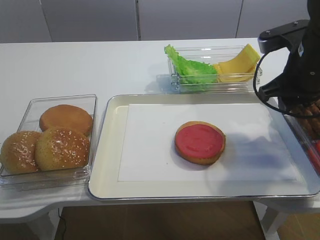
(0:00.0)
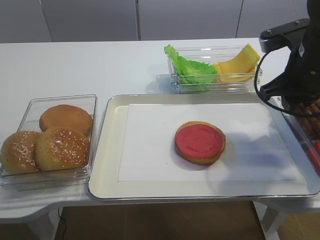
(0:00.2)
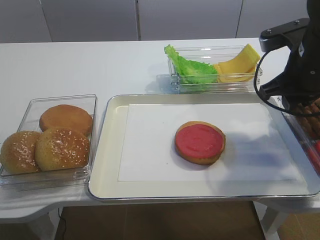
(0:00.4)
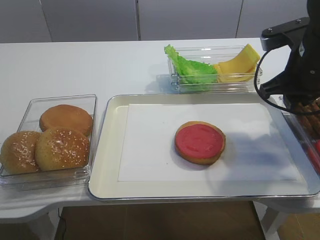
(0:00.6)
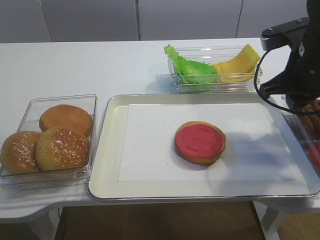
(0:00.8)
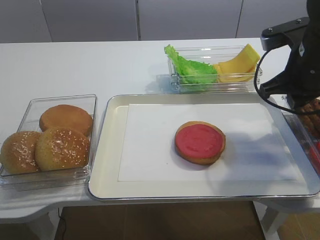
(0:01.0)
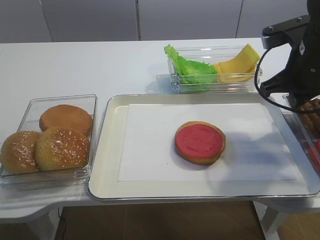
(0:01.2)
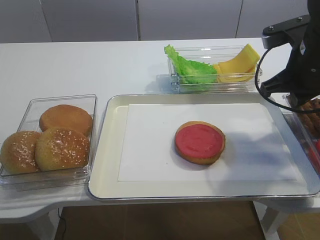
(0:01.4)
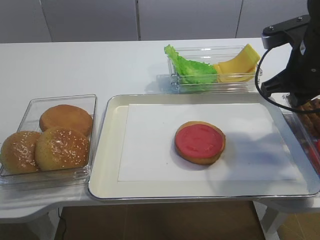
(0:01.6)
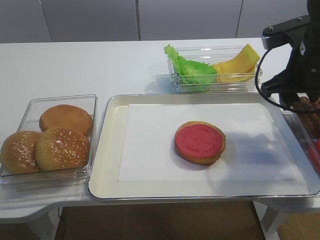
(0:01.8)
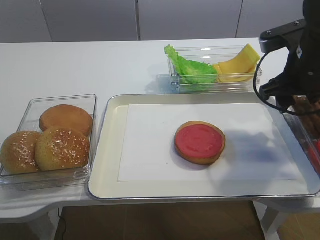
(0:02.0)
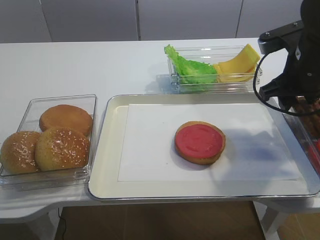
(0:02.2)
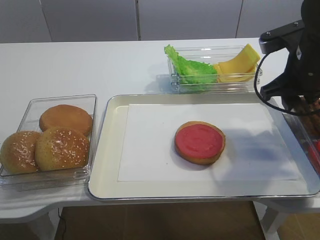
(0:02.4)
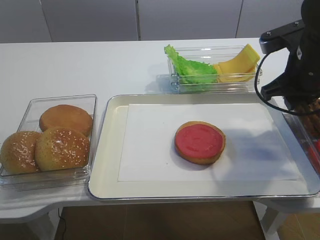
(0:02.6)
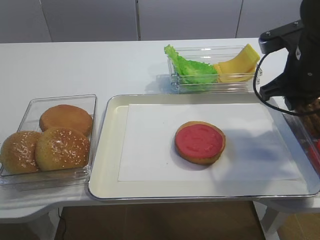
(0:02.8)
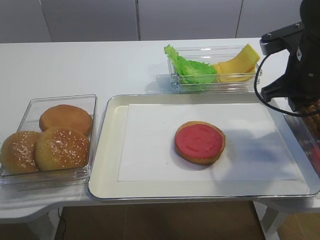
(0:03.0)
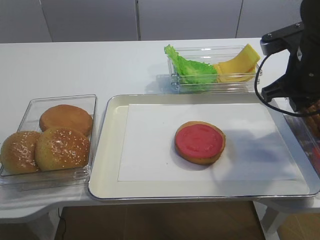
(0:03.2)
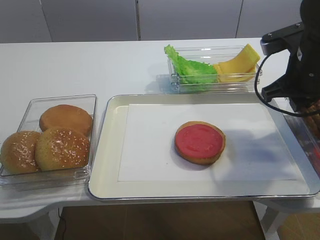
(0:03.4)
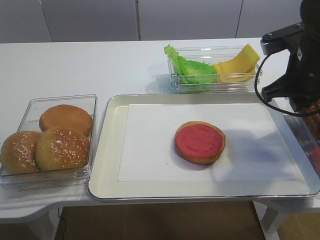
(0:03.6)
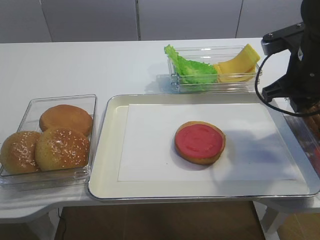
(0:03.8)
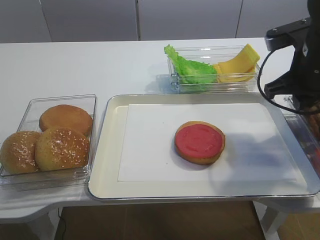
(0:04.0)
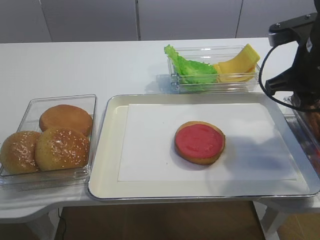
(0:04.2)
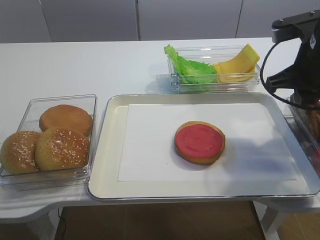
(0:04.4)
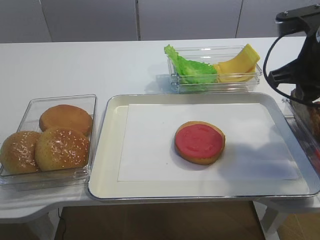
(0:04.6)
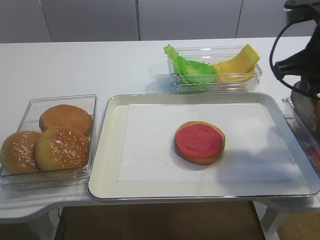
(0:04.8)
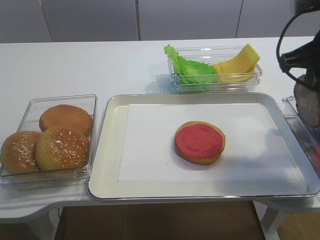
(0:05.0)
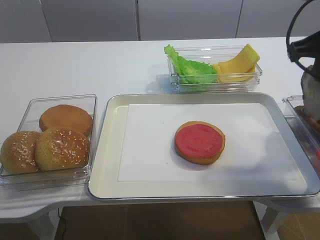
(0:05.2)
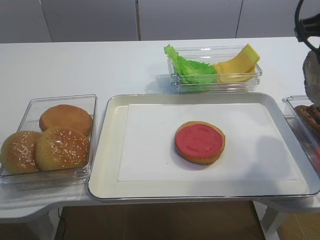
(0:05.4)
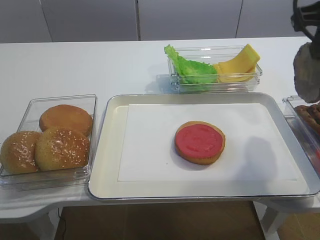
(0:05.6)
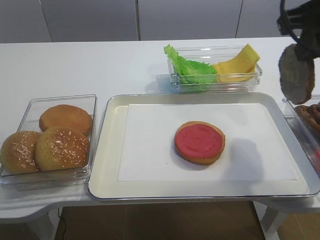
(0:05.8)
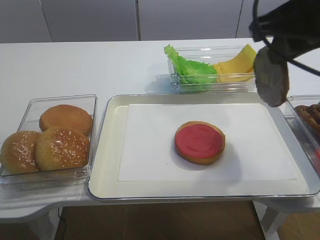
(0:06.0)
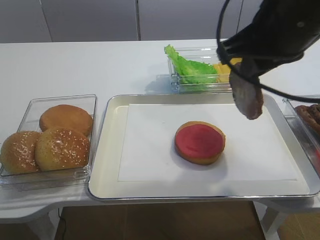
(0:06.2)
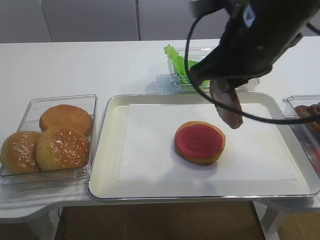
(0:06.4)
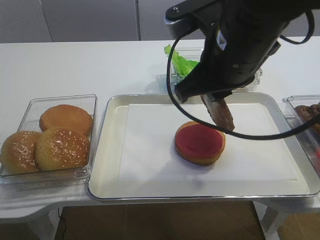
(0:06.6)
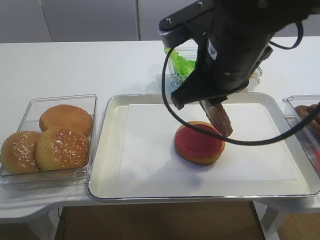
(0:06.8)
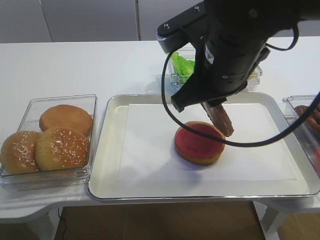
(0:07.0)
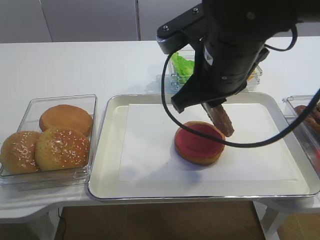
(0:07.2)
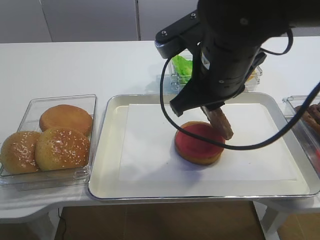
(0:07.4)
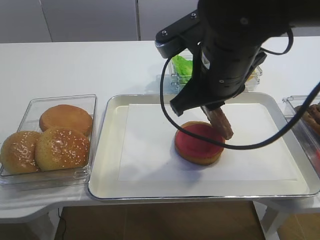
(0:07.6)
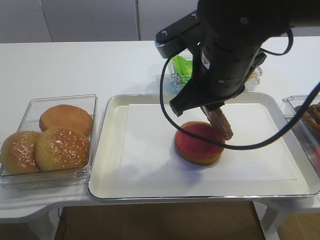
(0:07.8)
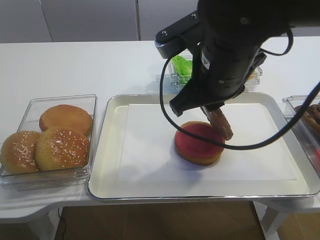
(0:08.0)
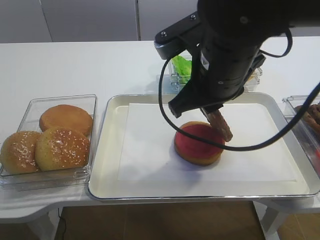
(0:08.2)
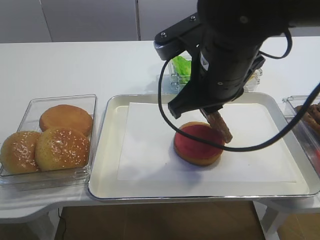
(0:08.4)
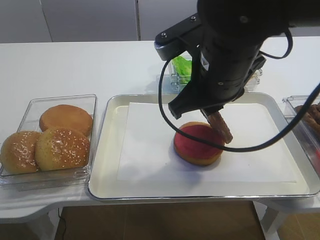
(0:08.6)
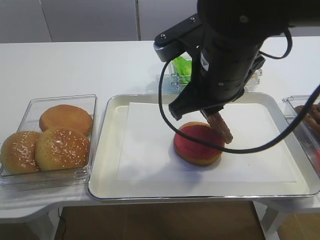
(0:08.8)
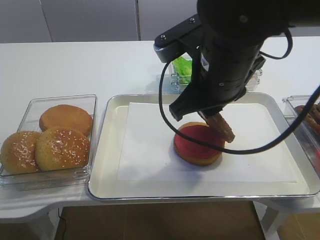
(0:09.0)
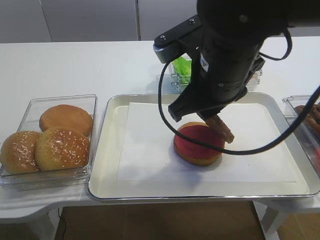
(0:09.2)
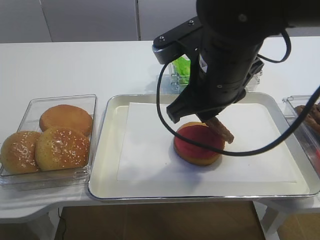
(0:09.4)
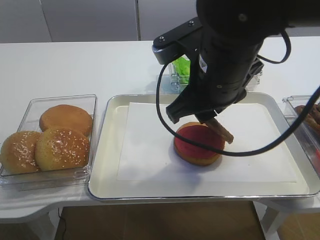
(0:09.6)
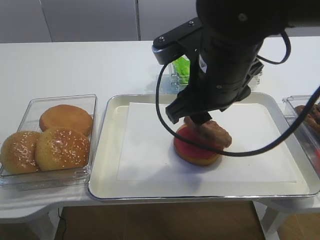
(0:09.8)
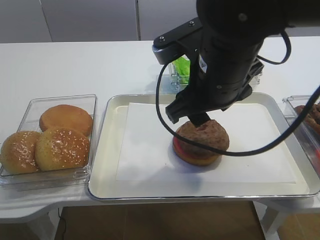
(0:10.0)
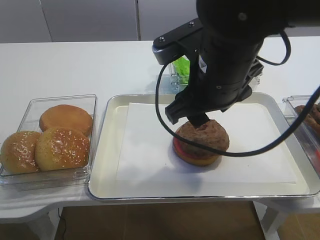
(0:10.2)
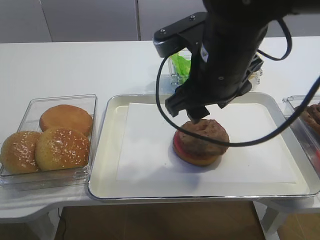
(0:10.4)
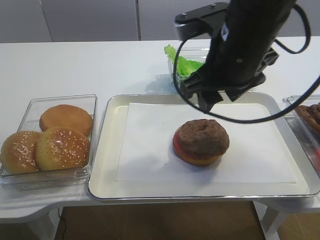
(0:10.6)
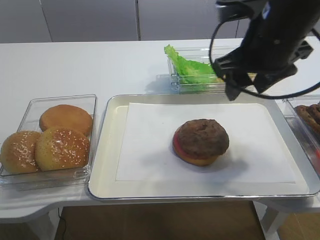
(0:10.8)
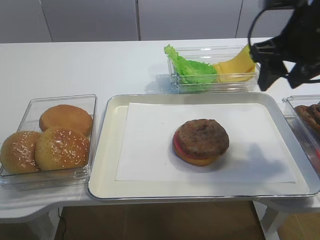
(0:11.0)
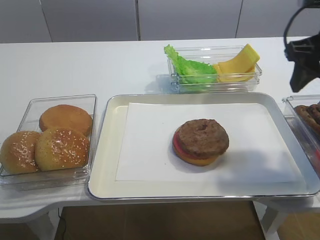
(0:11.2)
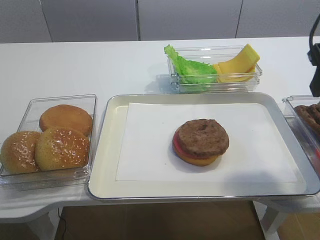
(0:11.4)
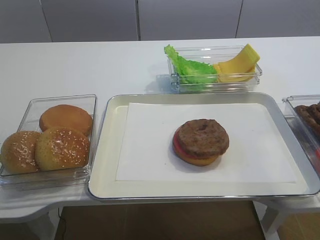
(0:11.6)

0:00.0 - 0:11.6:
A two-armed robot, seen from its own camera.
Step, 0:00.0 - 0:05.2: Pick up the cutlet with the right gripper.
Step, 0:05.4 - 0:11.4: Place the cutlet on the tomato slice with the right gripper.
0:00.0 - 0:01.4: The right gripper closes its fingers.
0:01.4 - 0:02.8: The right gripper opens up.
0:02.8 - 0:04.4: The grippers move only a little.
0:04.4 - 0:05.8: The right gripper shifts roughly 10 cm upward and backward.
0:05.8 - 0:07.2: The right gripper heads to the left and downward, covering approximately 15 cm.
0:07.2 - 0:08.8: Neither gripper changes place.
0:08.8 - 0:10.2: The right gripper opens up.
0:10.2 - 0:11.6: The right gripper shifts approximately 20 cm to the right.

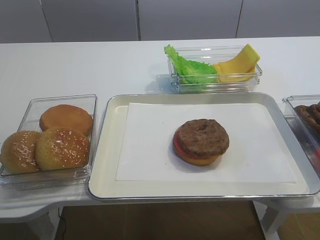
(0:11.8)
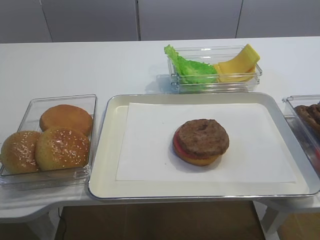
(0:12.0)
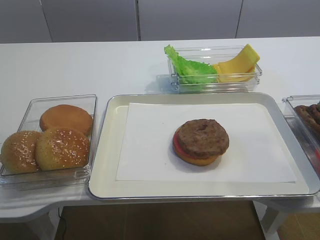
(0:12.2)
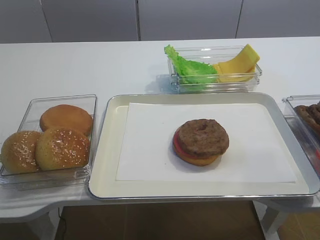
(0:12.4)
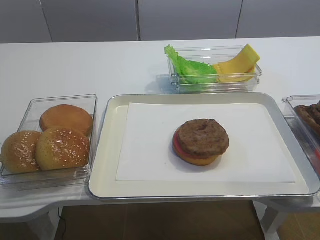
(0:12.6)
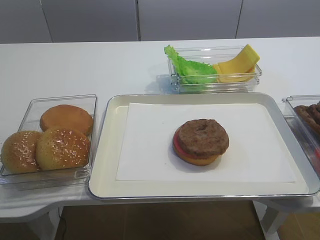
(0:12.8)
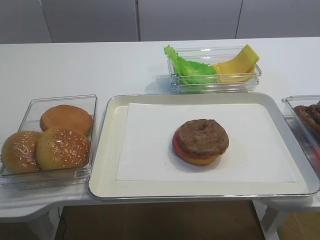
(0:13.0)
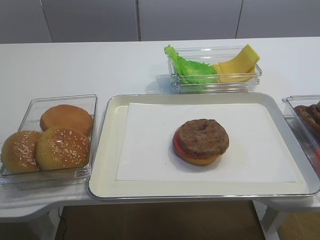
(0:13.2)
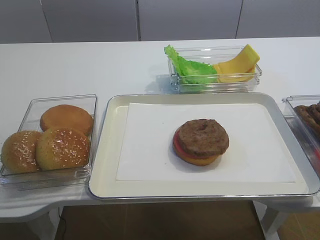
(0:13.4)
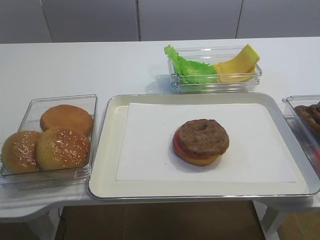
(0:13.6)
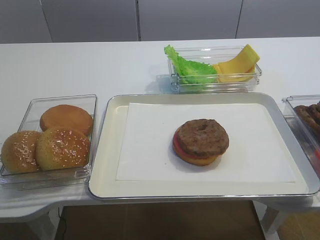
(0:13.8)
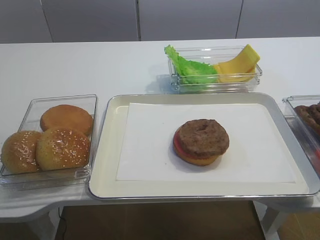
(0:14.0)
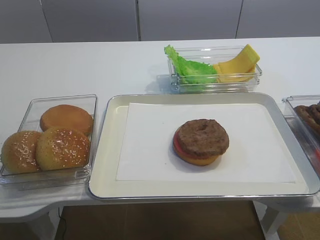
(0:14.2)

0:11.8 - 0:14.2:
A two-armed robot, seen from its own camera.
0:11.8 - 0:13.0: The right gripper heads backward, covering roughly 20 cm.

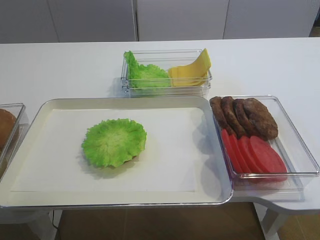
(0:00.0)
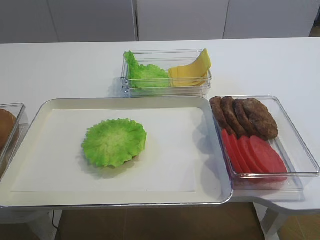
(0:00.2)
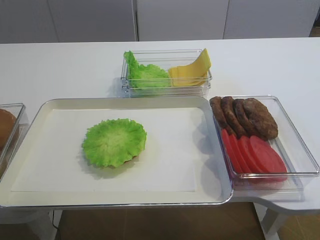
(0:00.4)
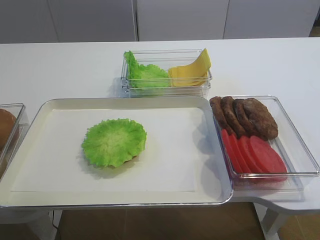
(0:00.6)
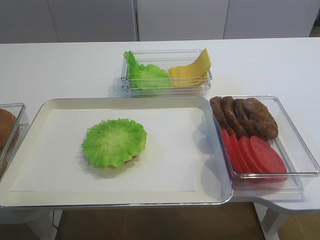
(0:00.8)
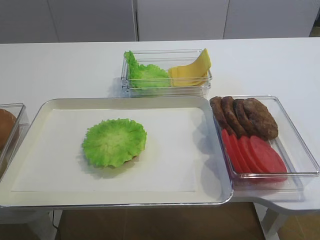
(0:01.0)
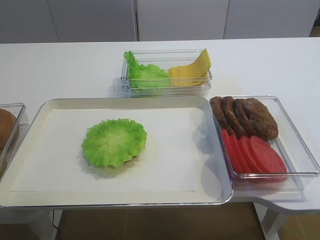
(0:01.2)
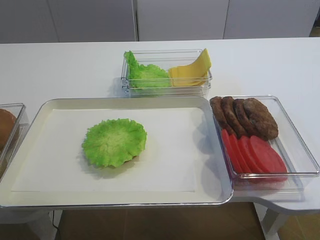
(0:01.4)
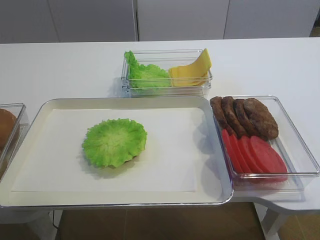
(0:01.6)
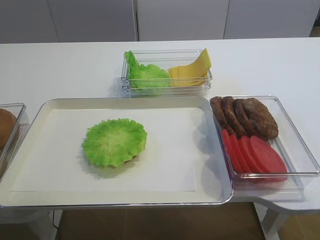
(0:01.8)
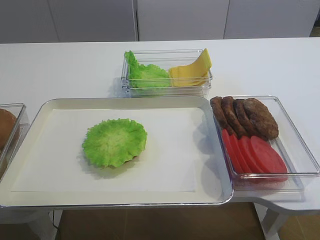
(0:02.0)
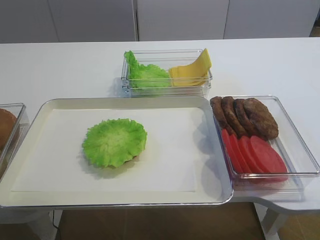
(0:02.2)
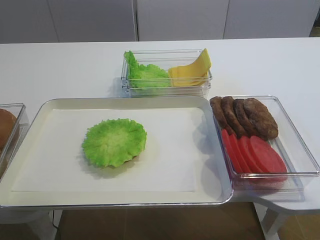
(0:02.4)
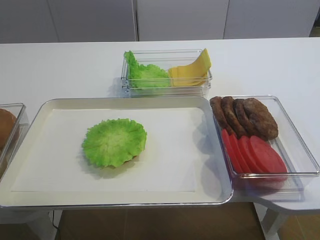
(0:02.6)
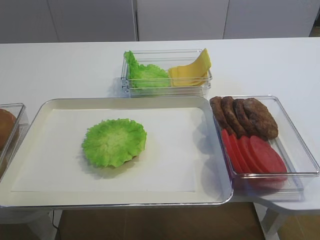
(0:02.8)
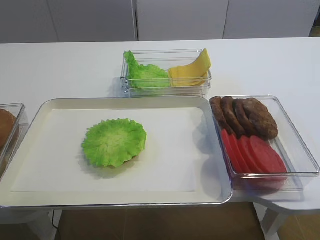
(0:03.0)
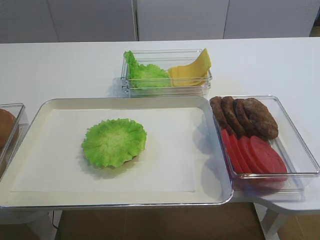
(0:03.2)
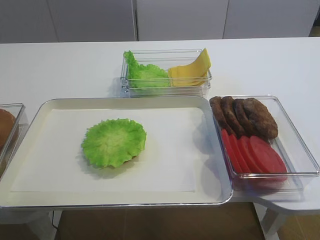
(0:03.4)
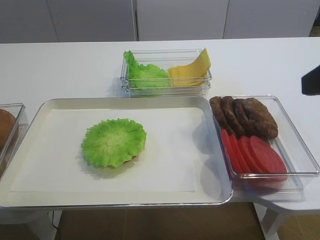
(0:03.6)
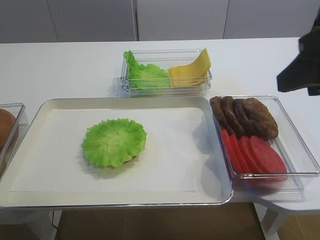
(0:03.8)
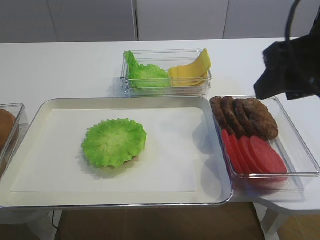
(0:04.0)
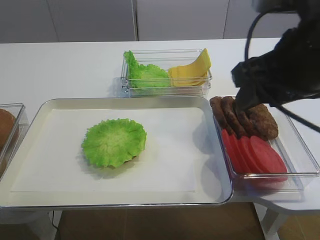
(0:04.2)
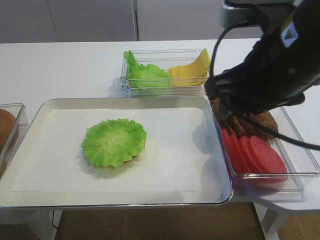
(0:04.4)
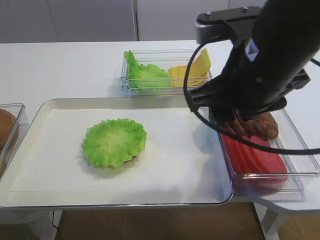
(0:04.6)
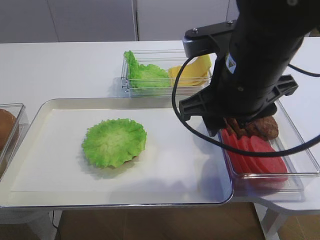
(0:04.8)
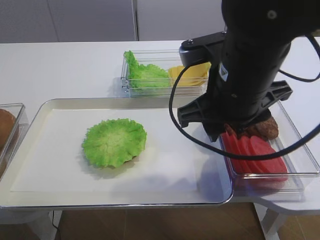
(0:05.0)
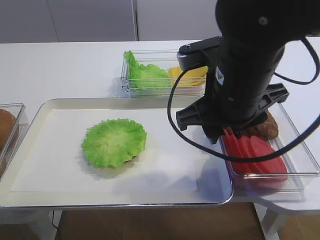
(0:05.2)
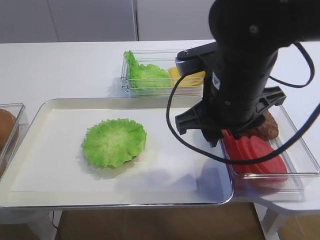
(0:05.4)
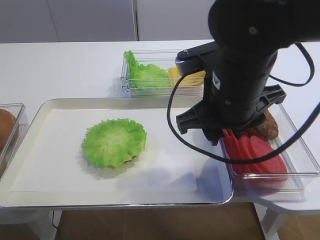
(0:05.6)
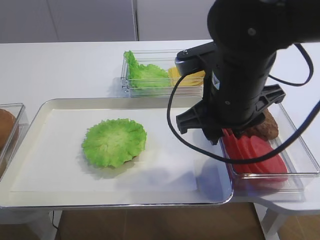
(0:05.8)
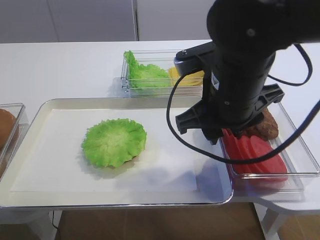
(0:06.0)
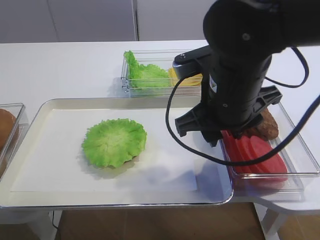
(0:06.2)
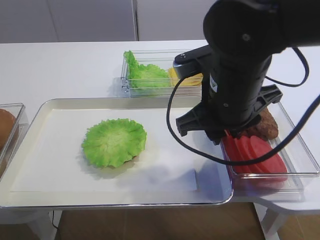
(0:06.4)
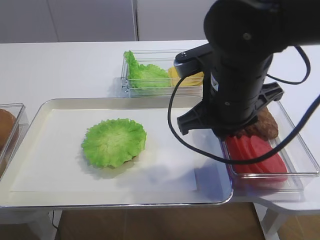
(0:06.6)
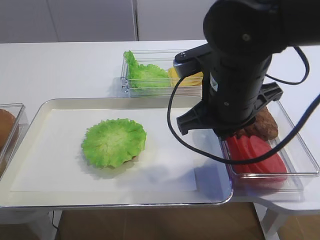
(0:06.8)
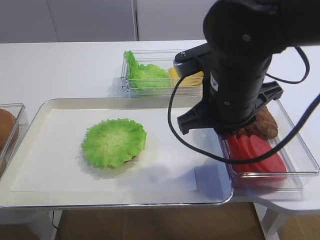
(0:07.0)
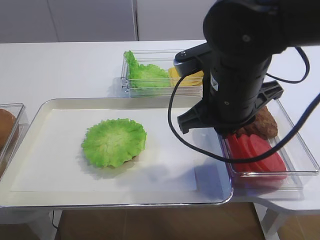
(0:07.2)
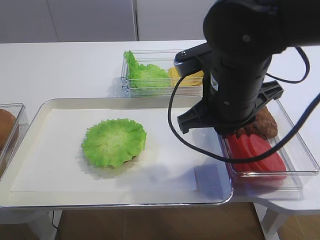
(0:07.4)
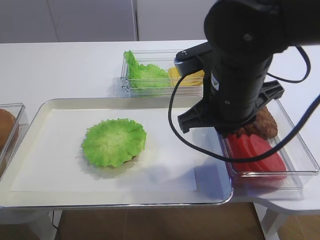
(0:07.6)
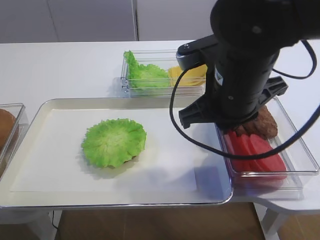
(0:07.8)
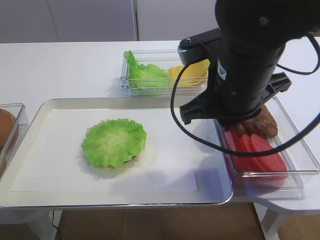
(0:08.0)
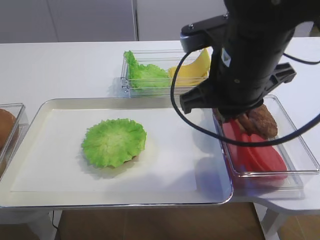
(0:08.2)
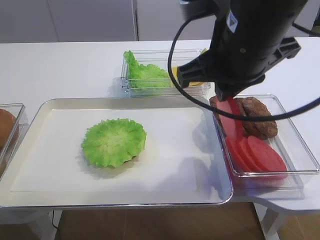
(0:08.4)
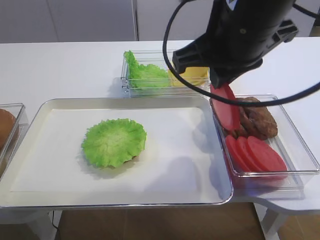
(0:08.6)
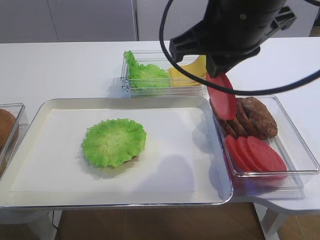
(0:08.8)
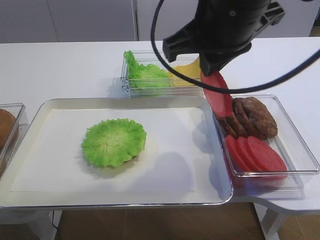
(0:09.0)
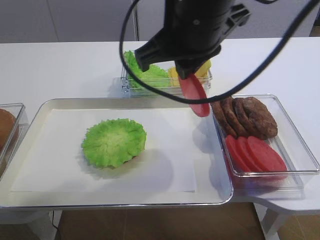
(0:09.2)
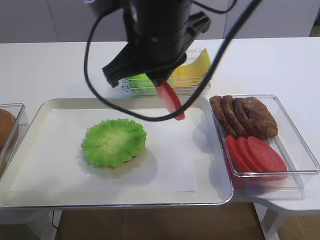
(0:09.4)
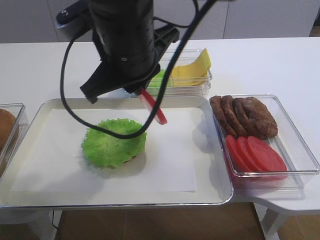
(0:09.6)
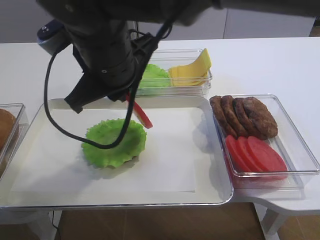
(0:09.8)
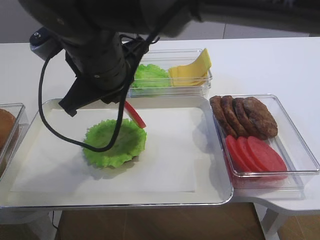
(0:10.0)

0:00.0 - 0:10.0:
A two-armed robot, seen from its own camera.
Step, 0:00.0 - 0:08.8: Pick up the tomato slice with the right gripper.
0:01.4 - 0:02.8: The right gripper heads upward, covering about 5 cm.
0:02.8 - 0:04.2: The right gripper is displaced forward and to the left by about 20 cm.
0:04.2 - 0:05.8: The right gripper moves to the left and downward, approximately 10 cm.
0:05.8 - 0:07.2: The right gripper closes its fingers.
0:07.2 - 0:08.6: The right gripper heads upward, covering about 10 cm.
0:08.6 - 0:10.0: The right gripper goes roughly 15 cm to the left.
